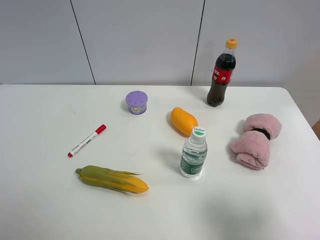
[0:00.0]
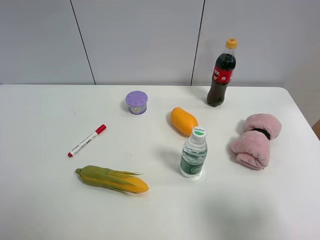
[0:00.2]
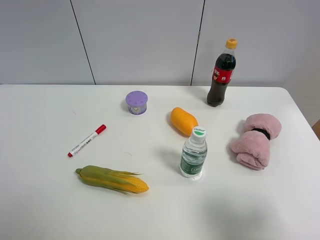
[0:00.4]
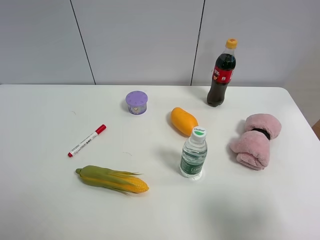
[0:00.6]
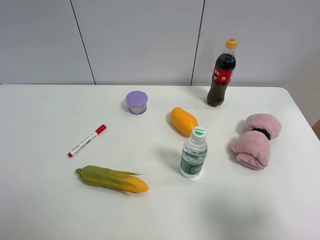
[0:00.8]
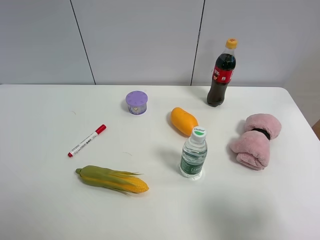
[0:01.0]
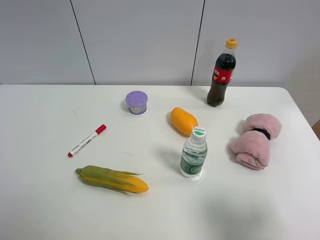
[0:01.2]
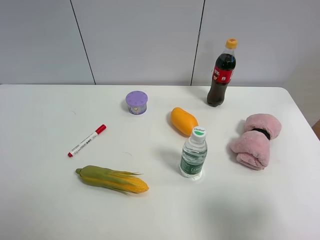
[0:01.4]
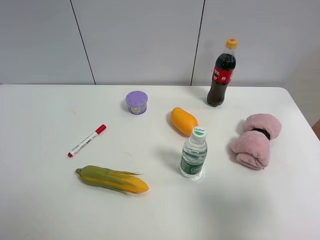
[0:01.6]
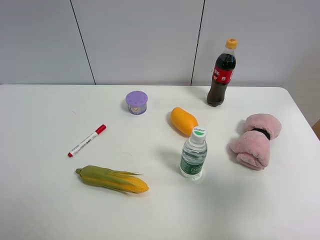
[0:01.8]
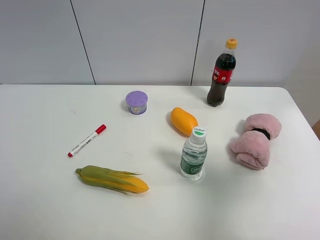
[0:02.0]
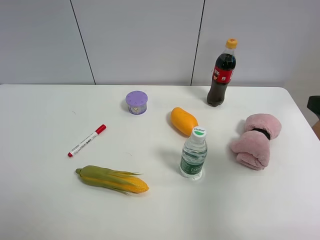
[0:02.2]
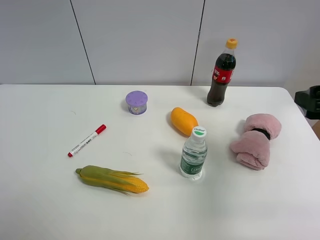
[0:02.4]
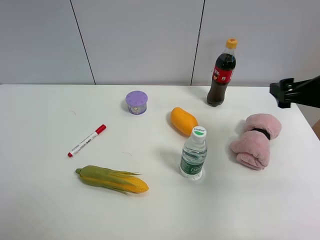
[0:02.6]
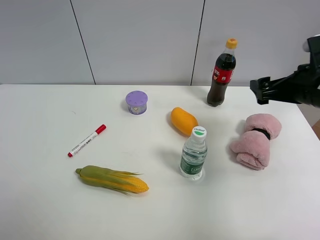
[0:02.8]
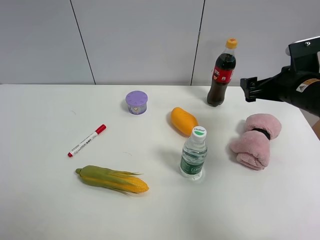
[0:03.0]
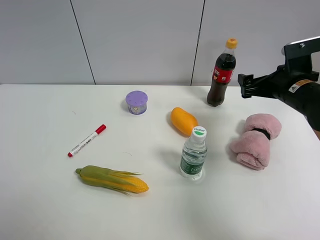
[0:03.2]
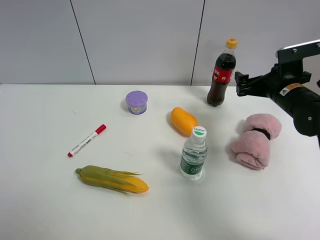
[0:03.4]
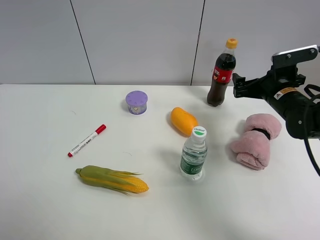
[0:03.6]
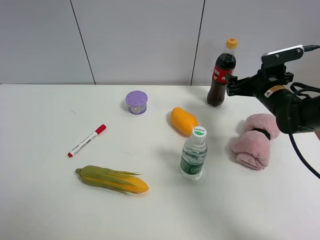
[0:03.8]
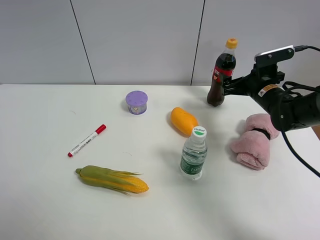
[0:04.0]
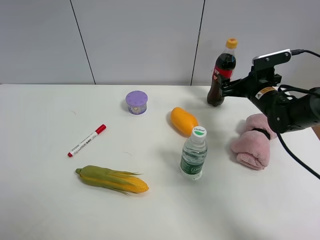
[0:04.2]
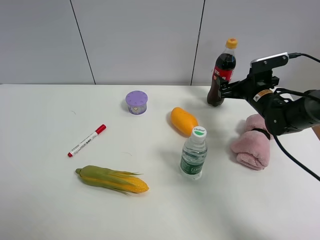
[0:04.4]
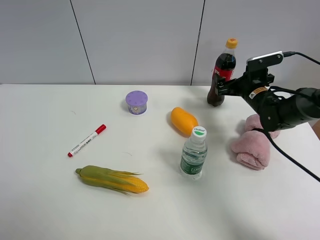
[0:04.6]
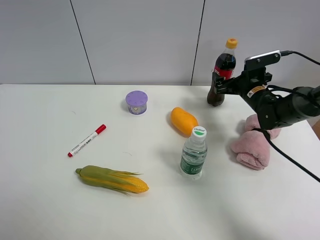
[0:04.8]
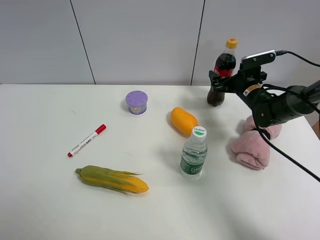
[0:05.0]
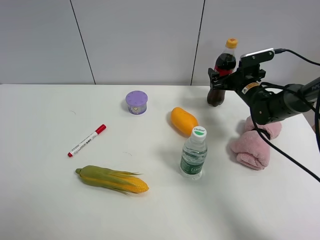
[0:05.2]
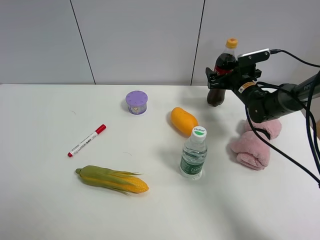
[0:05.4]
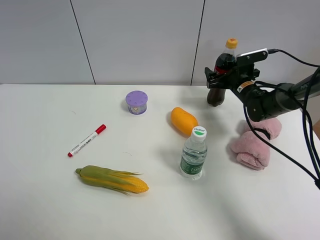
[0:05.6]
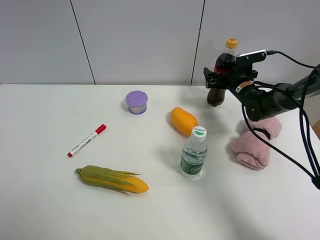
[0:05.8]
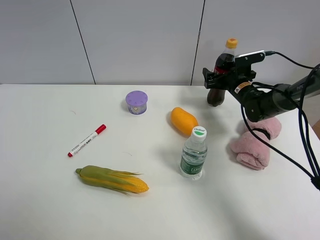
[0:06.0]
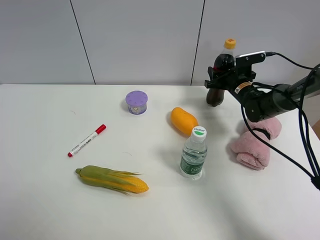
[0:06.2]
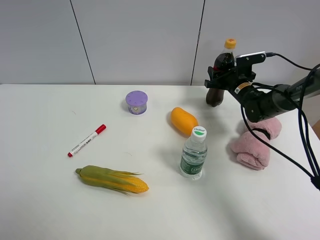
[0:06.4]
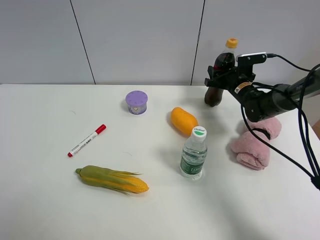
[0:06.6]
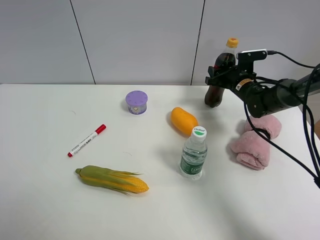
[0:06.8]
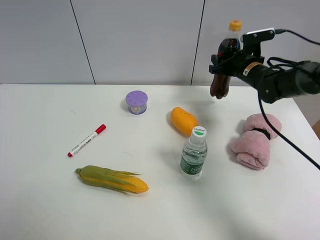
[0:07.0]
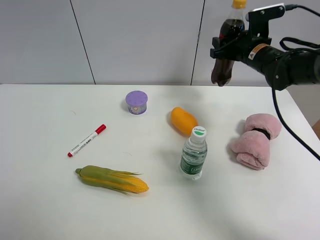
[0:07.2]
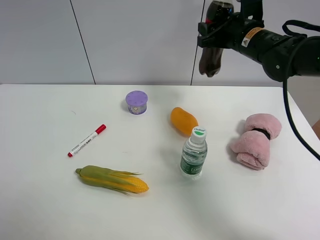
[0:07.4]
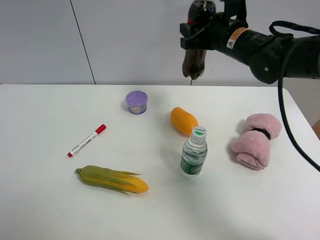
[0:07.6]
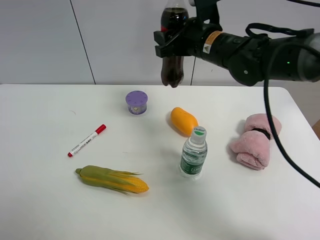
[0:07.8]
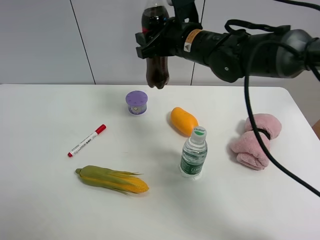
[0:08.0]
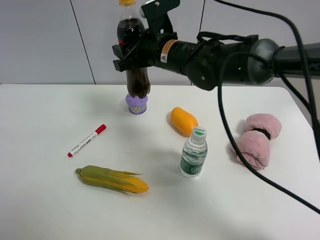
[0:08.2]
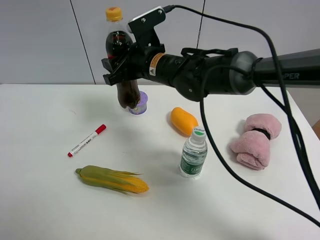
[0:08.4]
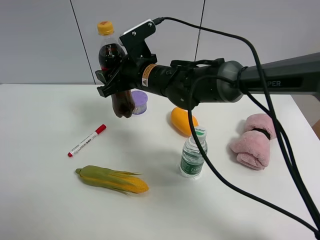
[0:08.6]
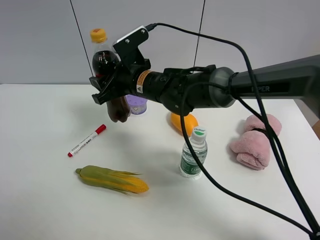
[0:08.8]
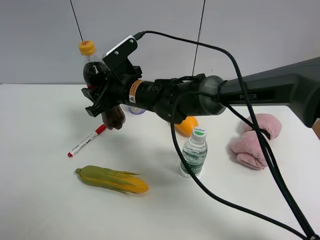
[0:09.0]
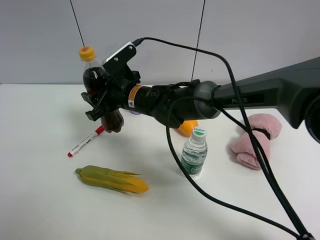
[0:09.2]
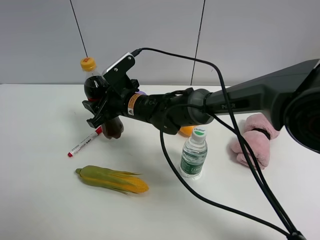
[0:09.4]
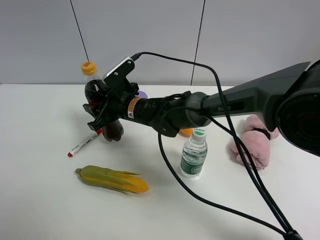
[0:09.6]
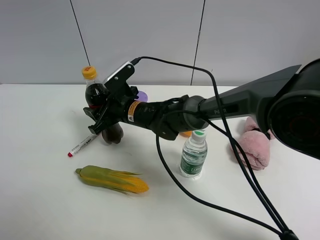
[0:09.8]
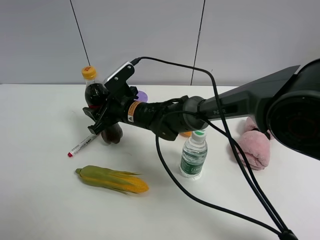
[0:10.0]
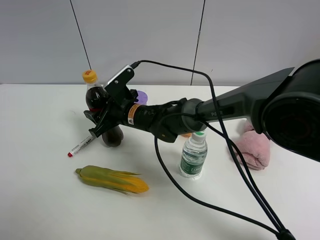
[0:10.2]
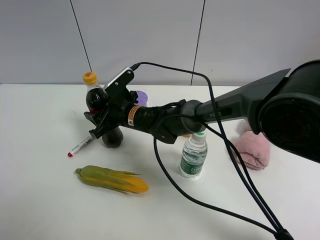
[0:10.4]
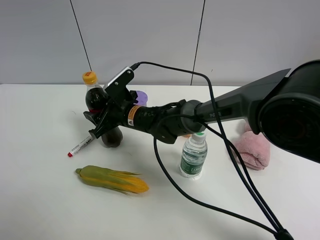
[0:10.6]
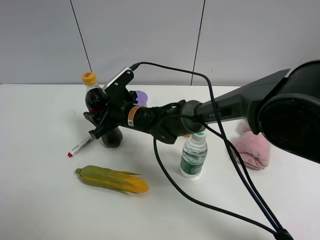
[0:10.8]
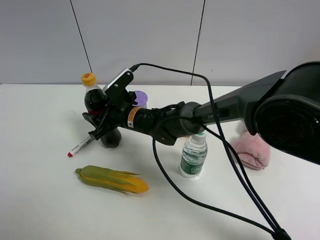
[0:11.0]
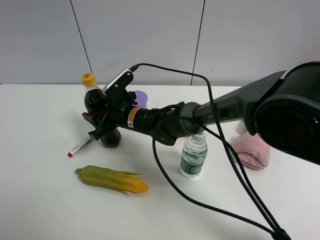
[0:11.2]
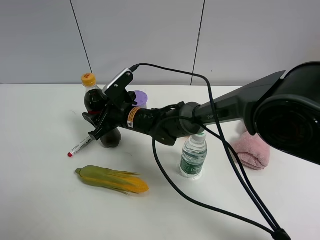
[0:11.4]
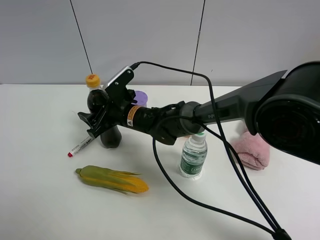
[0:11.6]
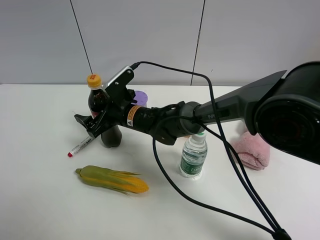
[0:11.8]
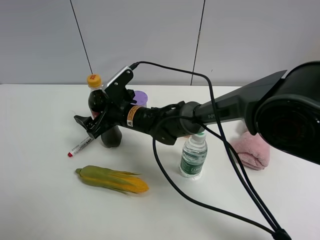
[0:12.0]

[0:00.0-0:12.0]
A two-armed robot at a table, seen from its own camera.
Task of the whole recording: the gripper move the object.
Step, 0:00.0 to 0:06.6: Grasp the coke with the right gripper.
0:01.6 to 0:03.0: The right gripper heads forward, covering approximately 25 cm.
0:03.0 to 0:04.4: The right gripper goes roughly 10 cm forward and downward.
0:04.4 to 0:06.0: The right gripper goes some 5 cm forward.
0:06.0 to 0:07.6: The right gripper moves upward, to the left and backward, roughly 20 cm, and closes its fingers.
0:07.6 to 0:09.0: The right gripper is displaced to the left and downward by some 20 cm.
0:09.0 to 0:10.4: The right gripper moves downward, about 5 cm.
0:10.4 to 0:12.0: The right gripper opens up.

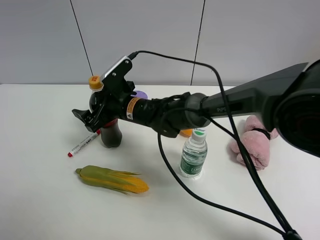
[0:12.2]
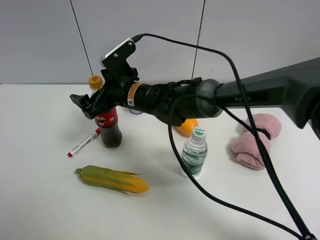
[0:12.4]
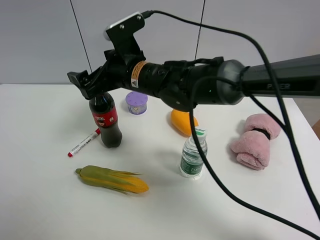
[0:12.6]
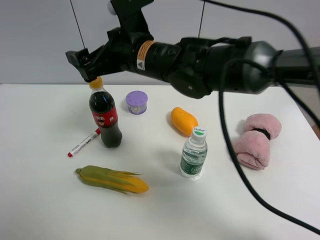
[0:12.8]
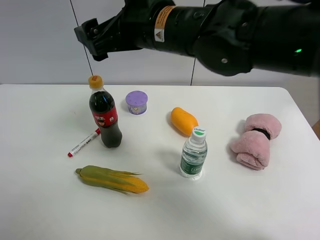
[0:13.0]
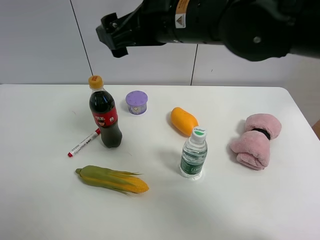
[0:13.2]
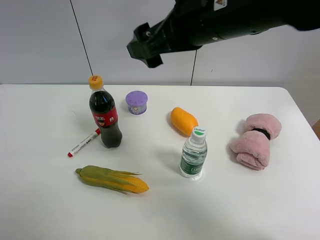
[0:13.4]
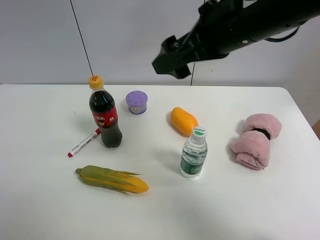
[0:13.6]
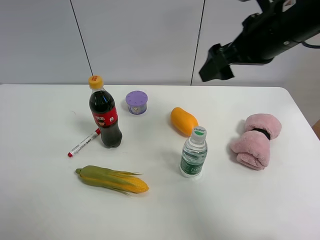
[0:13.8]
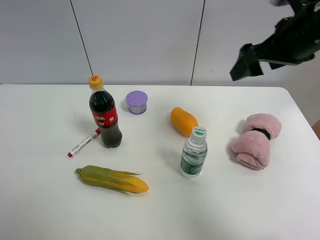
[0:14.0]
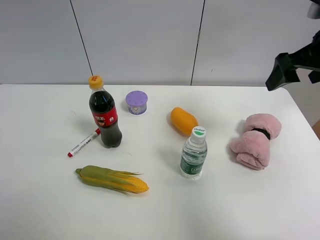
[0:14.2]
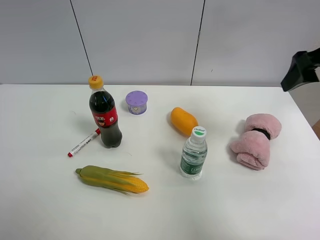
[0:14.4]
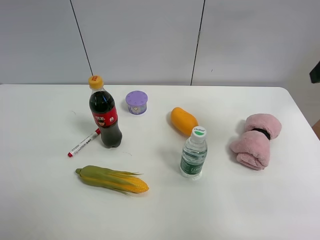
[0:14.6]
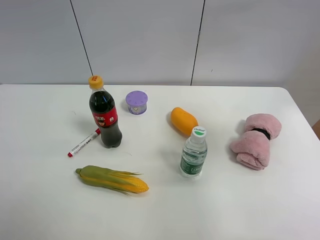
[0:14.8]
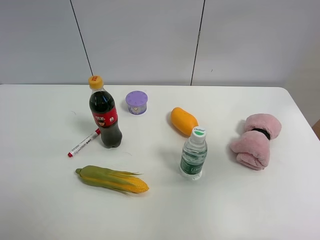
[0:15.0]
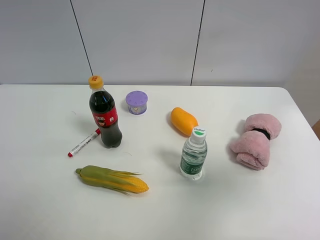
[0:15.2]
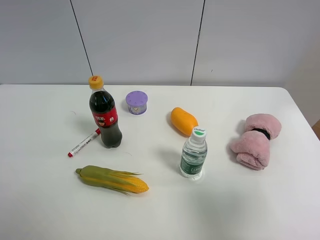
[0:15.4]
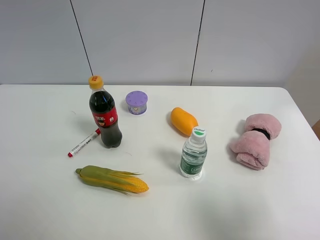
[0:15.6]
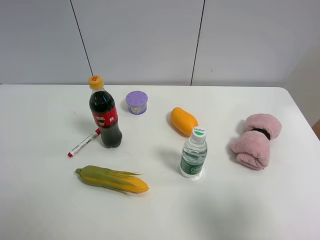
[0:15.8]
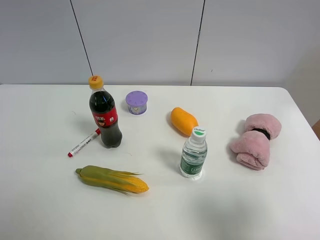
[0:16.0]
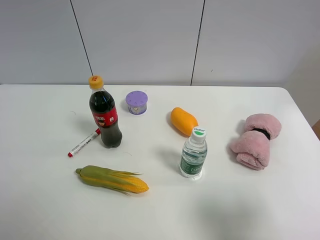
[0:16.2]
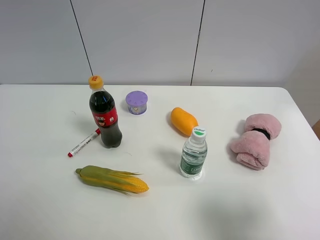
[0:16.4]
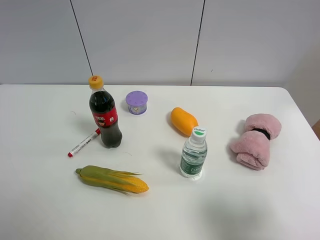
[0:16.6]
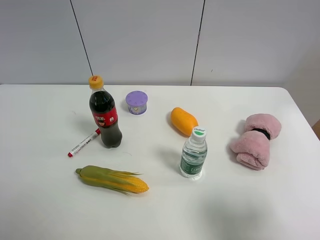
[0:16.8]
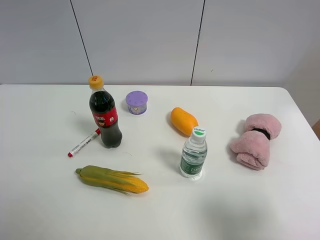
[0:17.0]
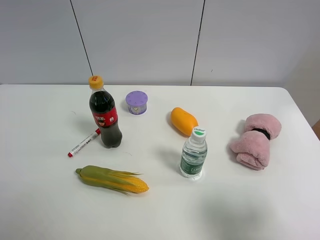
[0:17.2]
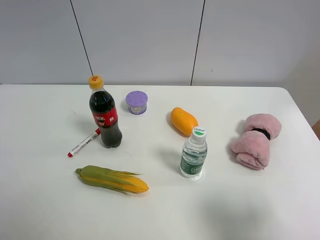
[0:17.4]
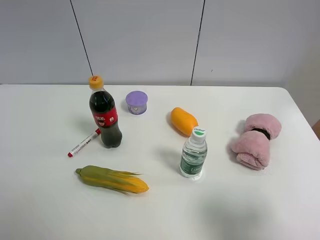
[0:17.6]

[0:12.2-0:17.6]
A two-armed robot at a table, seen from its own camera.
Task of the whole recording: the gripper move the object.
0:12.2 to 0:13.6: The right gripper goes about 25 cm upward and to the right.
0:13.6 to 0:15.0: The right gripper shifts about 25 cm to the right and backward.
0:15.0 to 0:16.2: The right gripper shifts some 15 cm downward and backward.
0:16.2 to 0:17.6: Both grippers stay put.

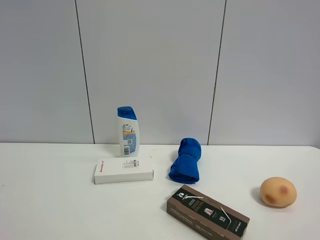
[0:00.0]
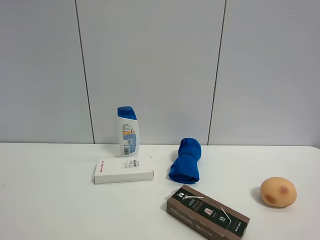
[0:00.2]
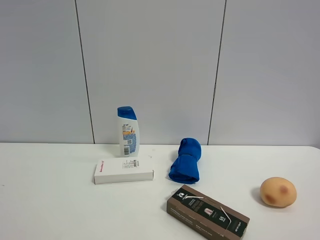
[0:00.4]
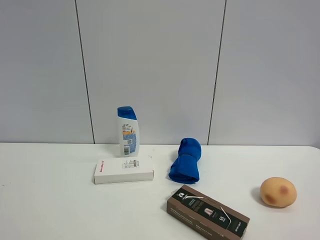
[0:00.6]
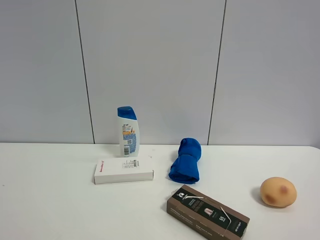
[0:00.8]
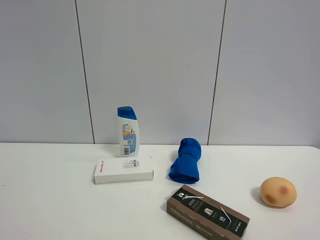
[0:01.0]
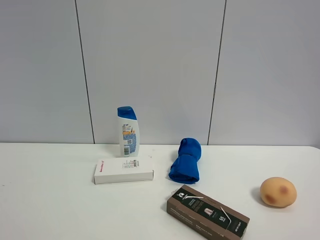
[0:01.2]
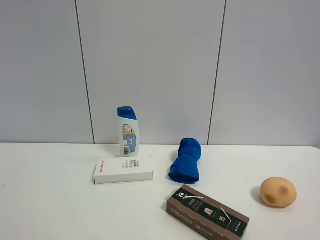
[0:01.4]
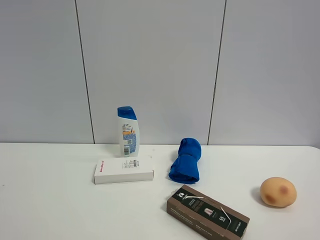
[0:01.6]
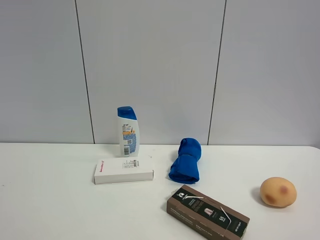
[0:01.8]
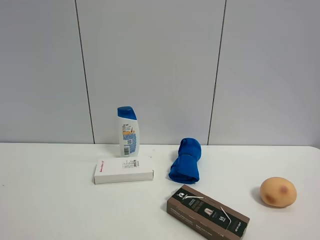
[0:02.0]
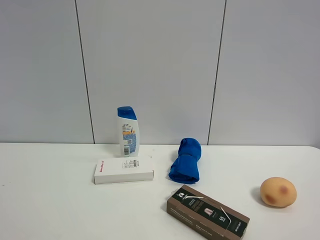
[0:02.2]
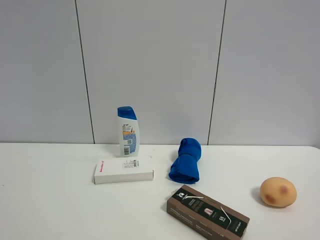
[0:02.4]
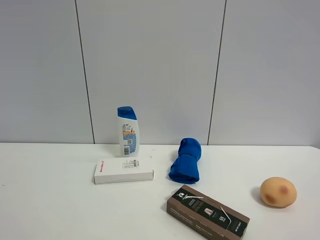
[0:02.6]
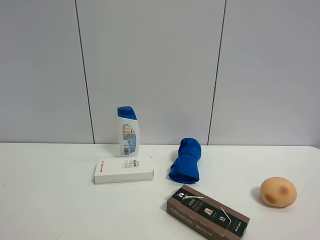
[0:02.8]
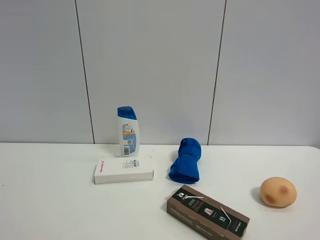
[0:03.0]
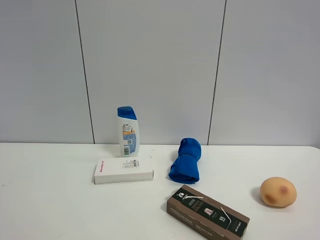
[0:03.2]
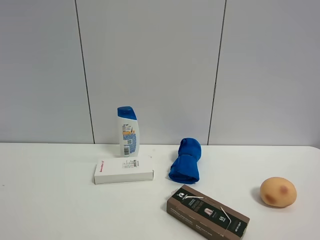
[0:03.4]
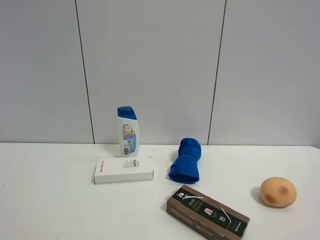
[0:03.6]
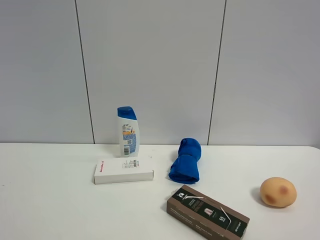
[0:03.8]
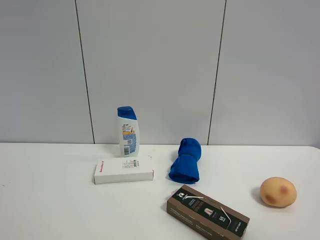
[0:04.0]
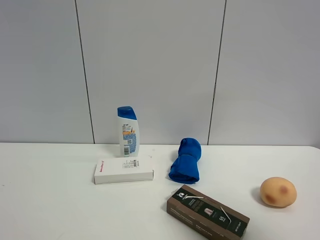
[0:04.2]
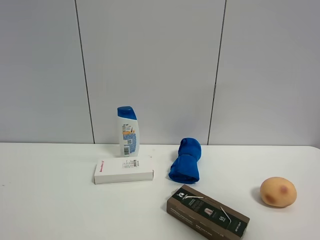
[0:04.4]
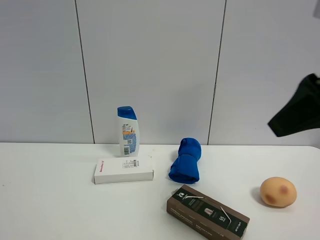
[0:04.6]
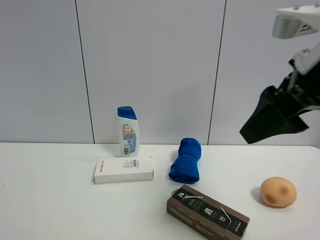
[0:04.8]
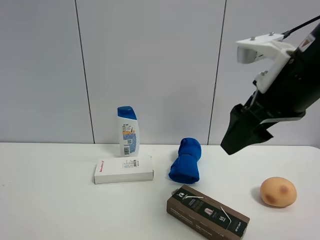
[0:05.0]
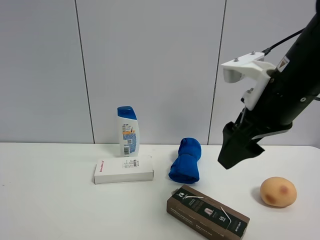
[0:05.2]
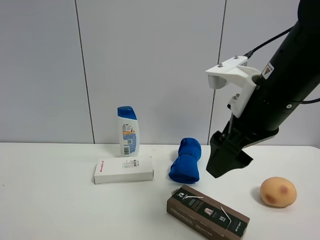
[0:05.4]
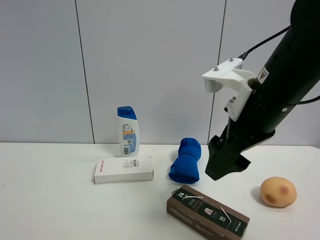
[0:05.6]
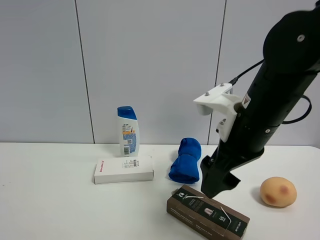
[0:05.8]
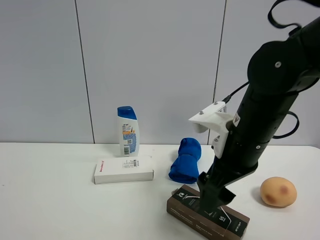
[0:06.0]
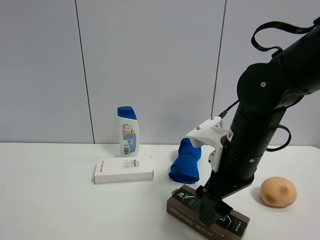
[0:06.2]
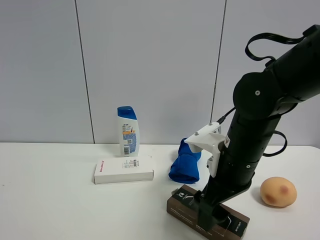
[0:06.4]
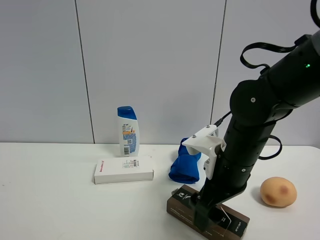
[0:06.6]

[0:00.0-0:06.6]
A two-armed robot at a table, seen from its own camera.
Task of the whole recording: the gripper move the object.
0:03.2 to 0:05.0: The right gripper travels forward and to the left by some 25 cm.
0:05.0 to 0:06.6: The right gripper is displaced downward by some 15 cm, and opens up.
